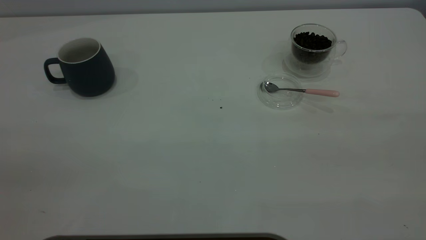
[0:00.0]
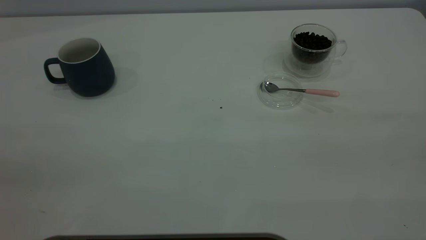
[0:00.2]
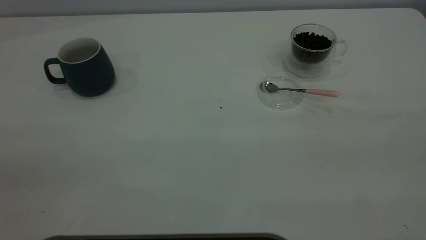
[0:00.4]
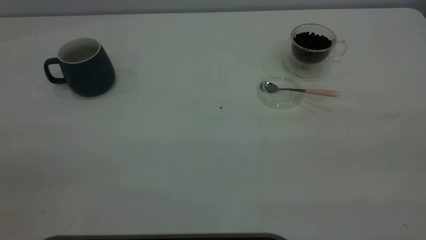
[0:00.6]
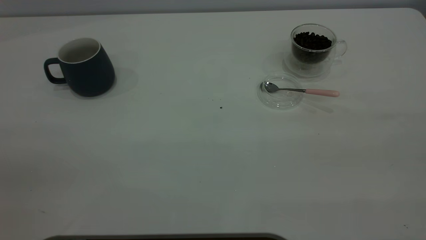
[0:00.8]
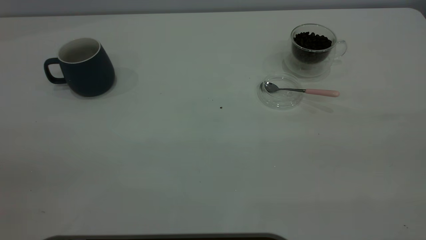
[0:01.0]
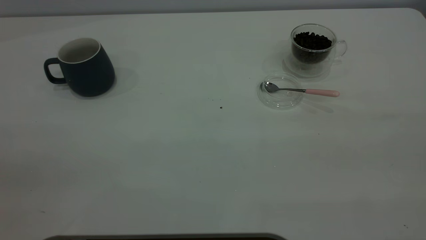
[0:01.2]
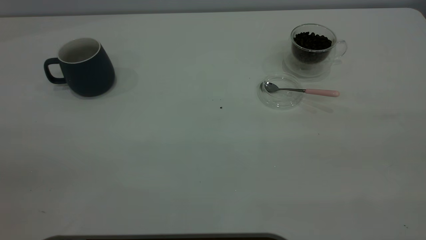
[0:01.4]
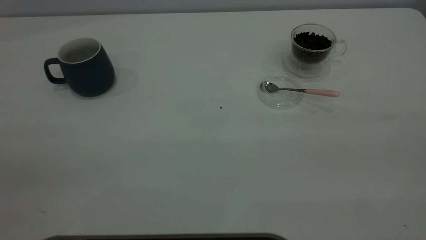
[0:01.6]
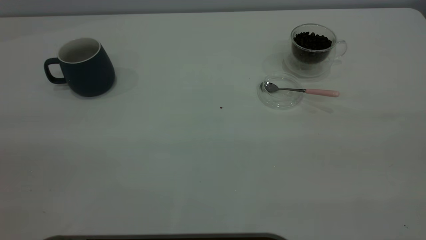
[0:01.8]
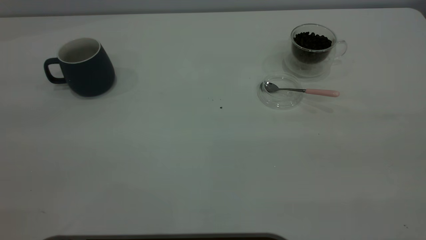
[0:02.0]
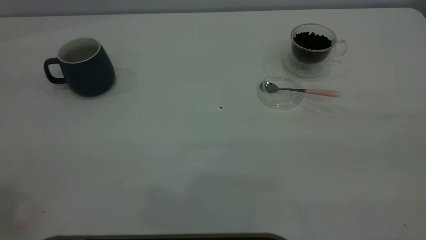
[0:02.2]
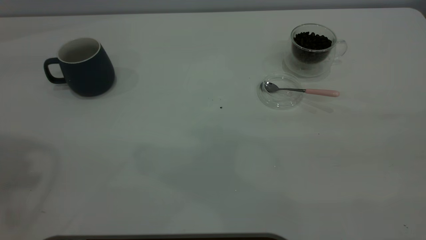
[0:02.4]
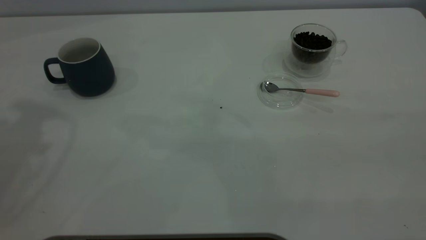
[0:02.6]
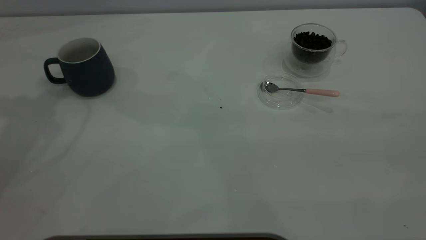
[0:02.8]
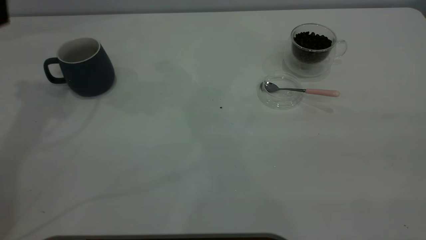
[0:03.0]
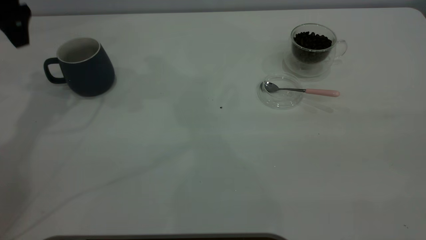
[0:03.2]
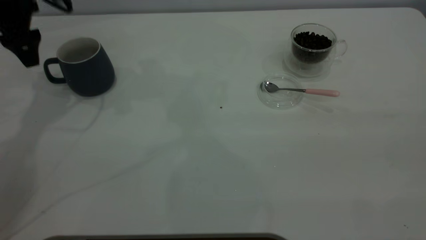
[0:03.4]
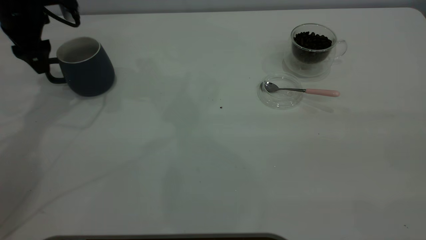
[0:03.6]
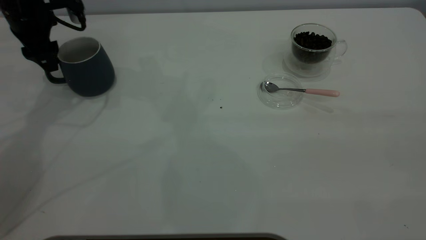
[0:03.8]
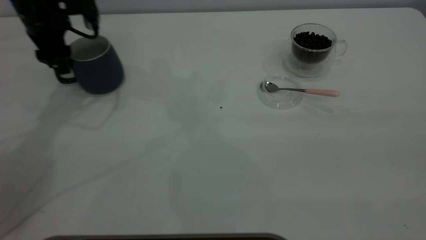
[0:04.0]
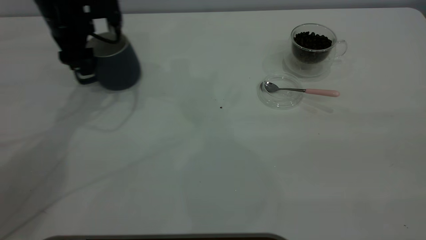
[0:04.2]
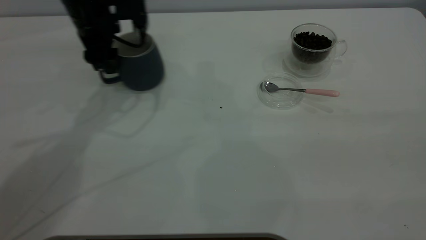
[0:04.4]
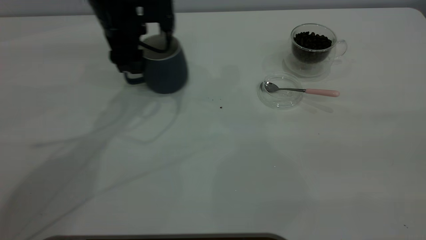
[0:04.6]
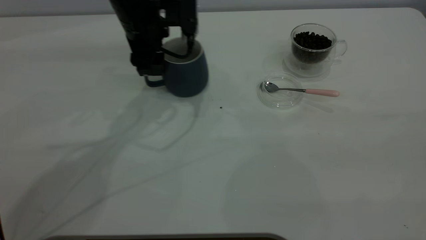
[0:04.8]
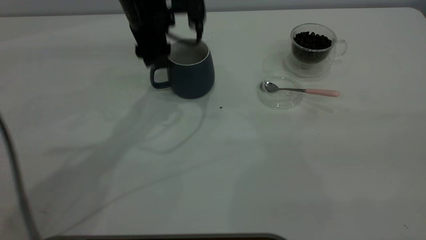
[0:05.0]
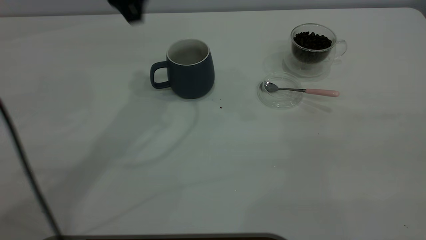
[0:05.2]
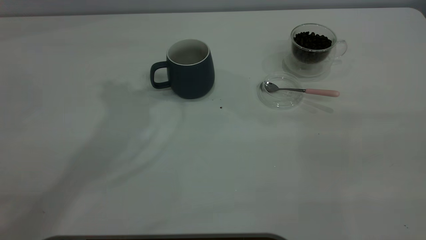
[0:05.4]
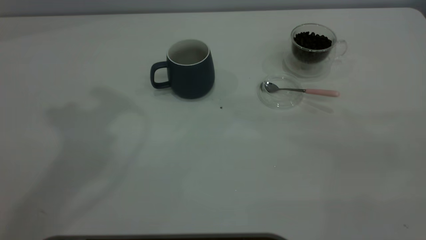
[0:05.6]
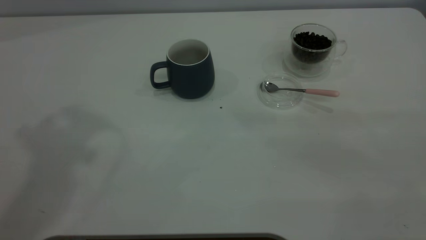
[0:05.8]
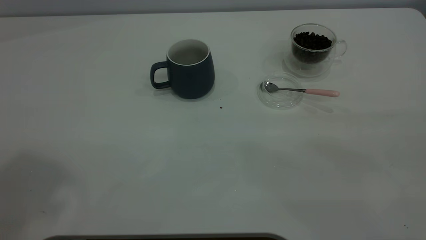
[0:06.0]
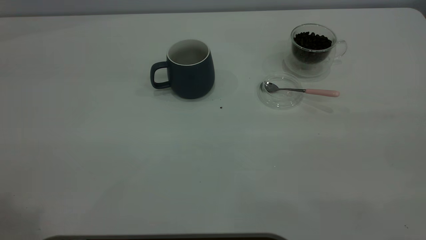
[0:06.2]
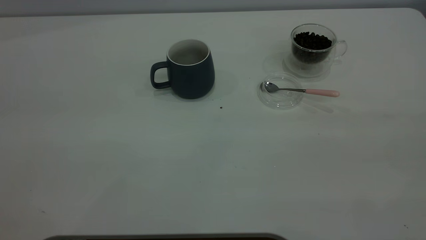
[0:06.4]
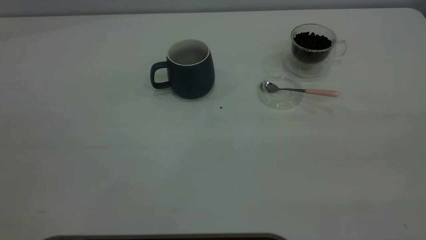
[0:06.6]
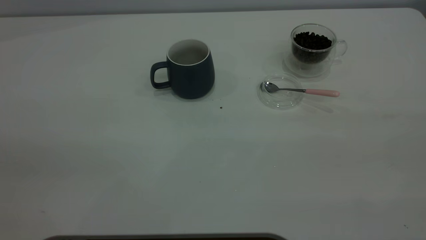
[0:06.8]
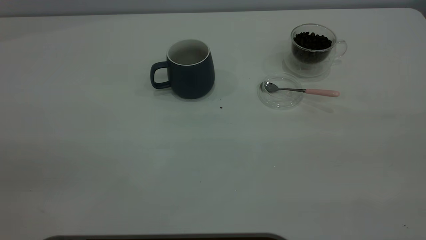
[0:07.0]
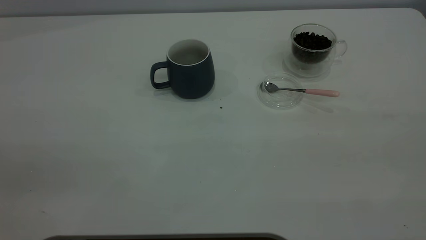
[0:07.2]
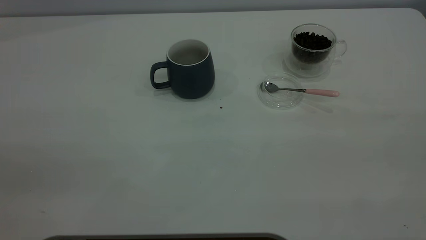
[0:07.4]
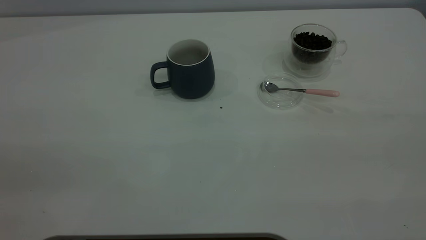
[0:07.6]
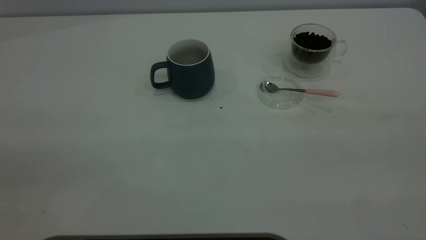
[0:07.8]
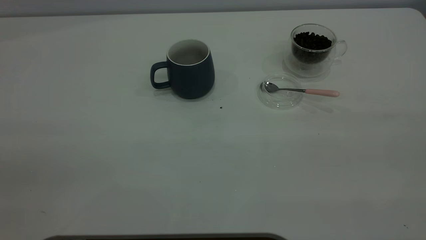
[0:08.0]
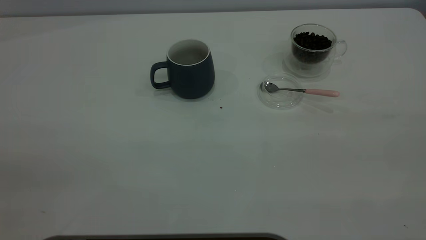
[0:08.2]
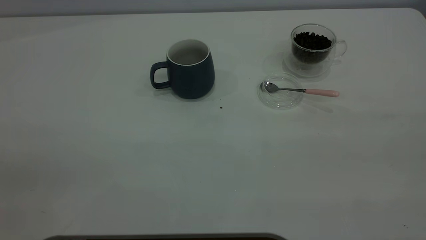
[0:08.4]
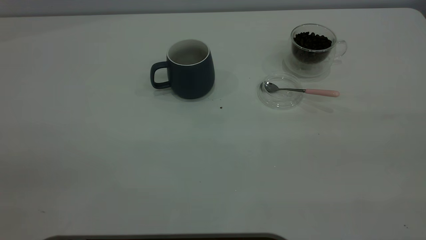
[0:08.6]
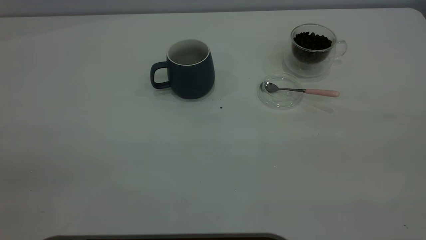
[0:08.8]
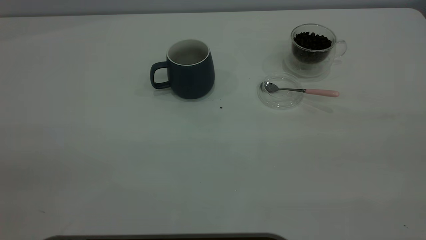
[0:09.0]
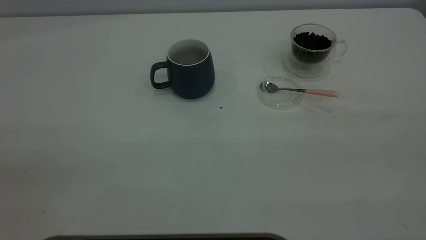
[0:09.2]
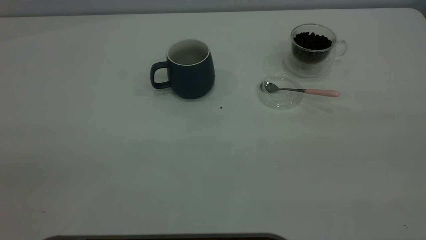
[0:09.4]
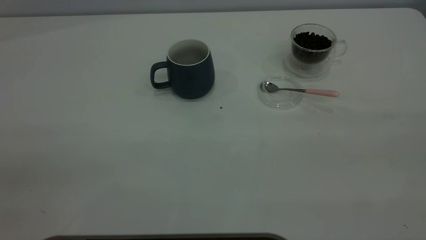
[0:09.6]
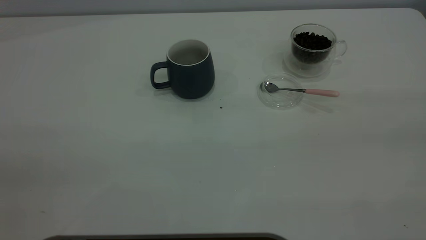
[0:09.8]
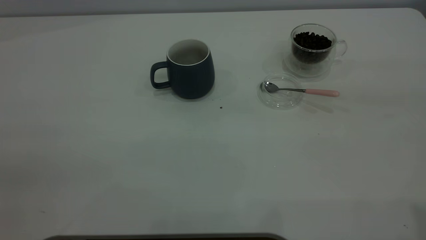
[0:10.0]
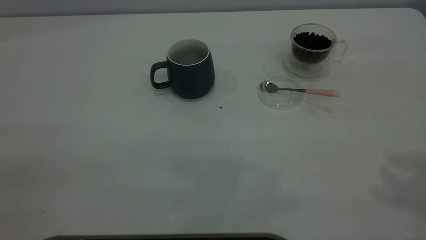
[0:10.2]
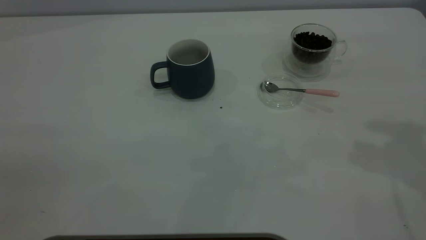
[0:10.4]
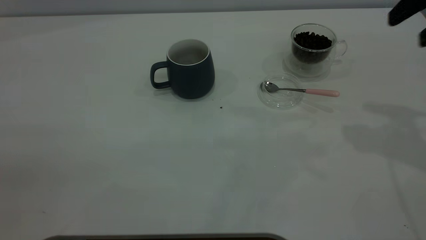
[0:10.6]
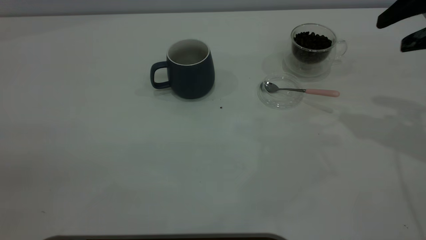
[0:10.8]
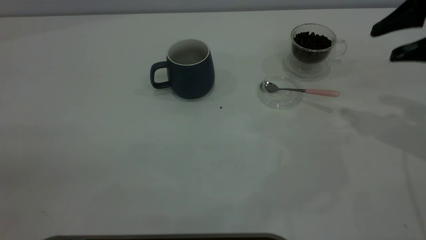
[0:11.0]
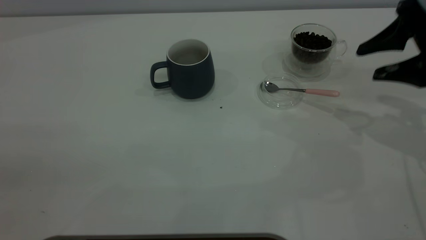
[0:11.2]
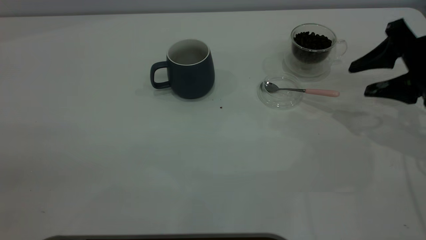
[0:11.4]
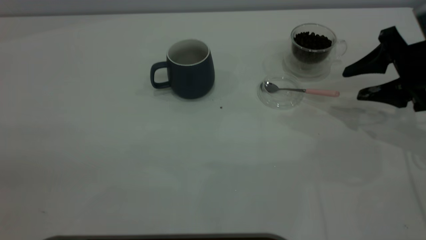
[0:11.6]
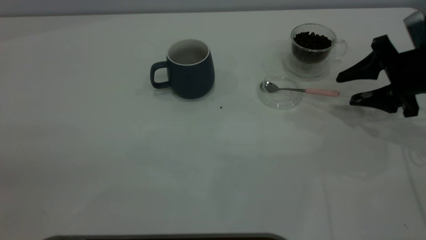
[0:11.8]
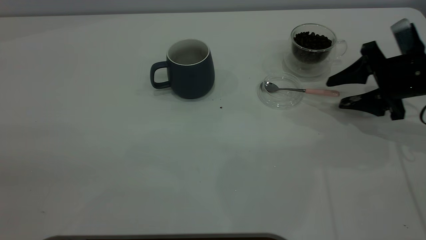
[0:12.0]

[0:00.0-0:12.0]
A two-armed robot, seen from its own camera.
Task of the whole recording: the left gripper place the grey cup in the center of the table, the right gripper take the pink spoon from the cup lid and scoop out the coffee beans from the coffee cup and put them into the grey cup, the right gripper put the spoon back into the cup lid.
Step, 0:00.0 to 0:04.8: Move the cup to the center of view.
0:00.0 to 0:01.6: Neither gripper changes place.
0:03.0 to 0:04.4: The left gripper shifts about 15 cm to the right and downward.
0:04.4 to 0:06.0: The left gripper shifts approximately 50 cm upward and backward.
0:10.4 to 0:12.0: The right gripper goes about 25 cm downward.

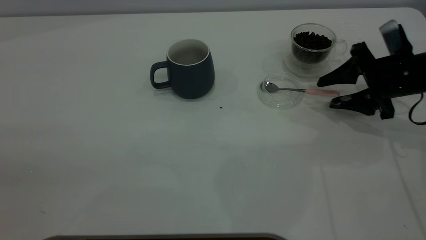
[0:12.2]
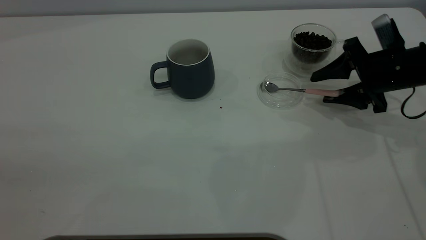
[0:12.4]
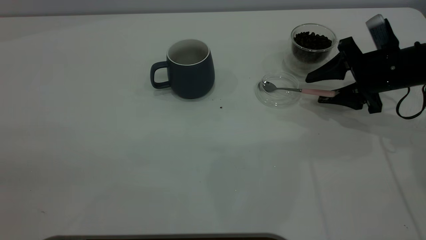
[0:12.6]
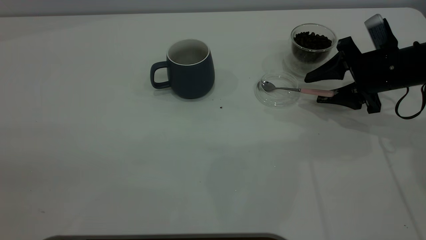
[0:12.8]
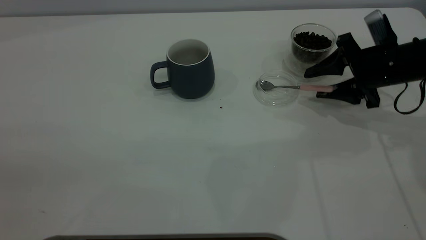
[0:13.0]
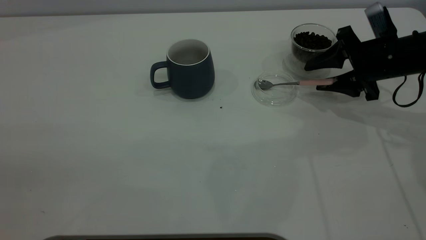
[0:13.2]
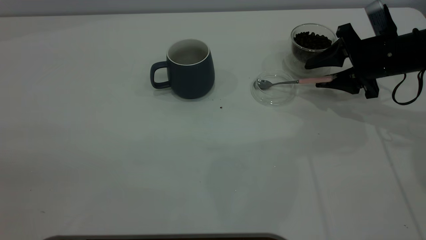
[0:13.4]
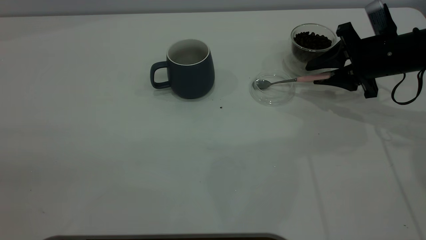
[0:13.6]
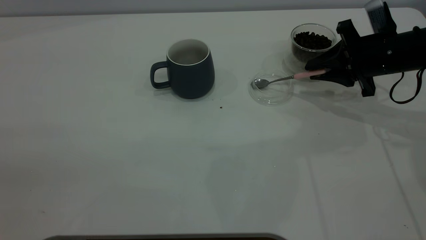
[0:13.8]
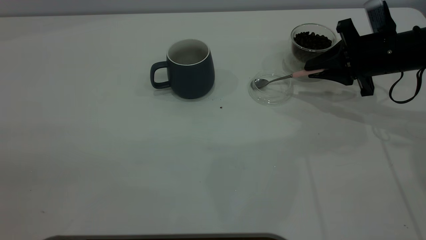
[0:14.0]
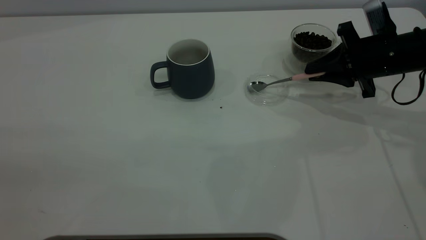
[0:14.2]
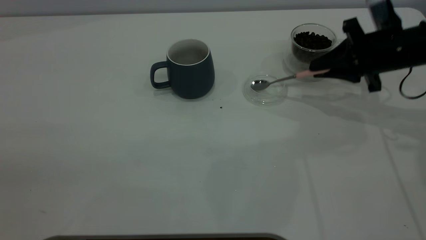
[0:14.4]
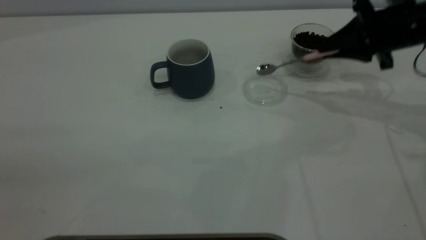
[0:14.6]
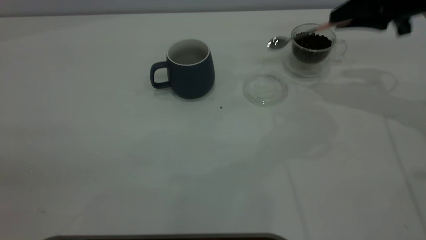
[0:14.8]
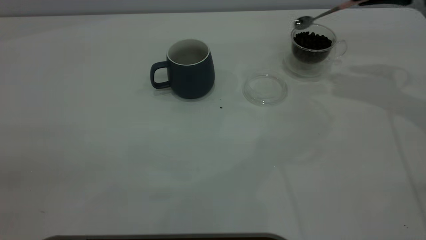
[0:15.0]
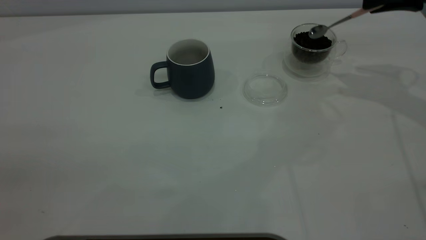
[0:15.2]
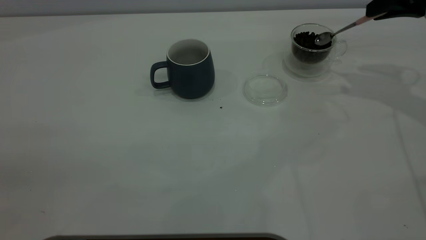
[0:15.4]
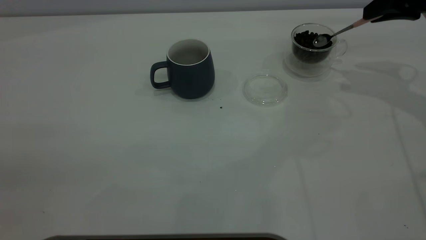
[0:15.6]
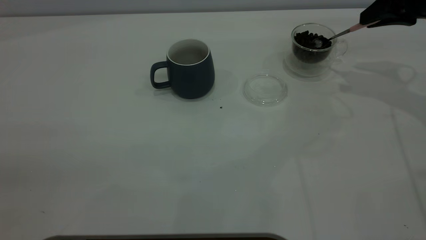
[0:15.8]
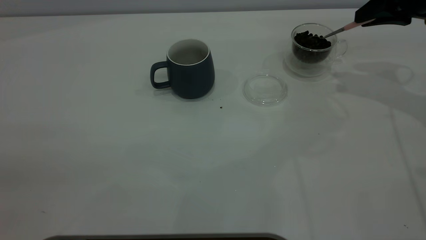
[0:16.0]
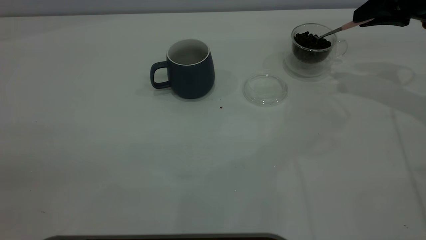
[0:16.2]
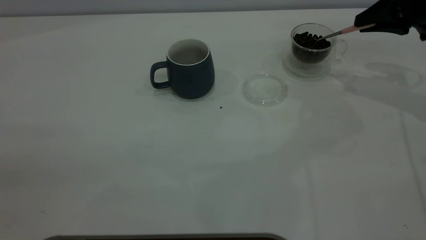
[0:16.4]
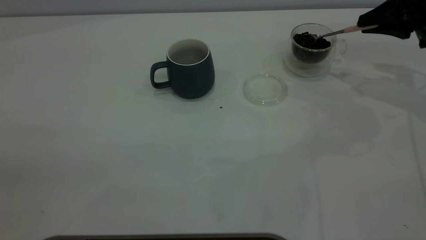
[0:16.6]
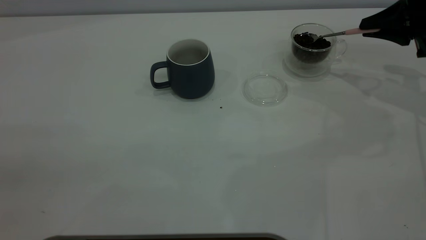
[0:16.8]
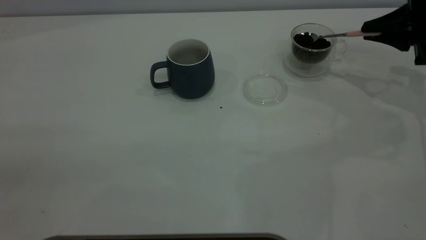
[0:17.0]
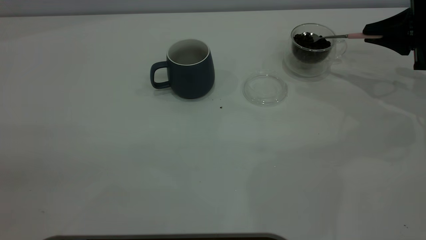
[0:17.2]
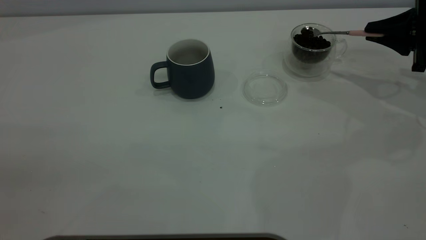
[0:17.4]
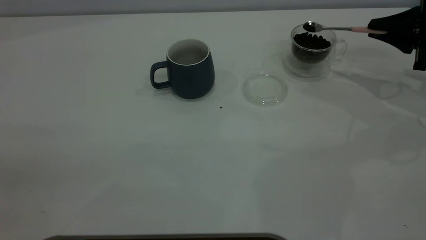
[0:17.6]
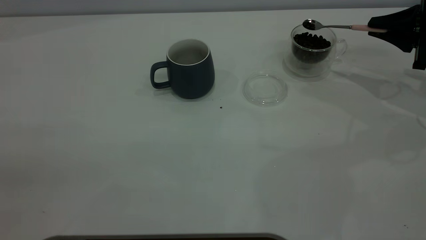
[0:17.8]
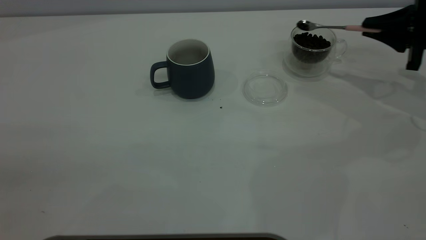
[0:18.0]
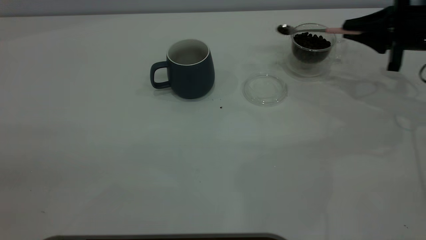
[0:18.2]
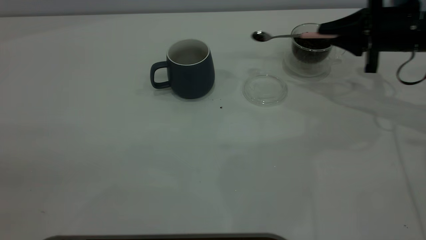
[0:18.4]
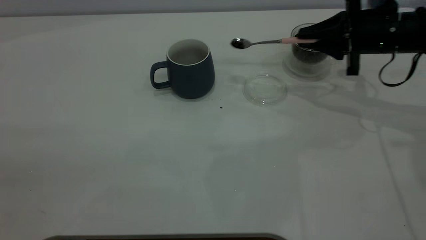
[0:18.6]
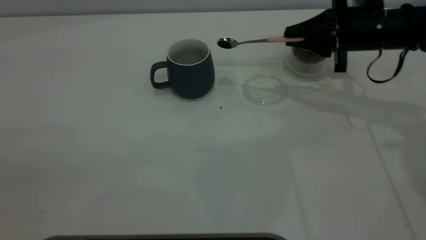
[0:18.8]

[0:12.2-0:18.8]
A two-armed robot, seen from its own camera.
Task of the whole recording: the left gripper place the grey cup in the center of the table, the right gripper take the pink spoon from the cup lid and scoop out the coffee beans from the coffee cup and put them into the grey cup, the right gripper put the spoon back into the cup lid.
Step, 0:12.2 to 0:14.6: Pick up the spoon.
0:12.2 to 0:13.8: The right gripper closes its fingers.
0:13.8 to 0:15.4: The right gripper travels upward and to the right by about 15 cm.
0:15.4 to 0:17.2: The right gripper heads downward, covering about 10 cm.
0:17.2 to 0:18.8: The right gripper heads to the left, covering about 15 cm.
